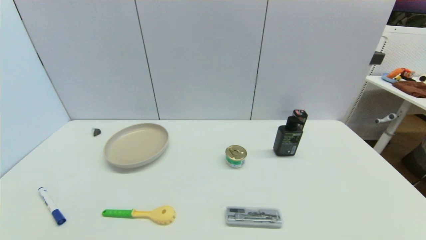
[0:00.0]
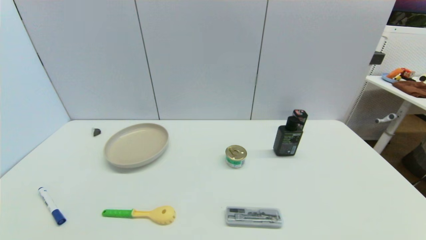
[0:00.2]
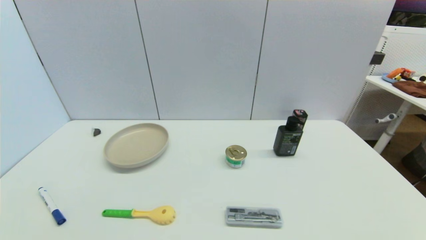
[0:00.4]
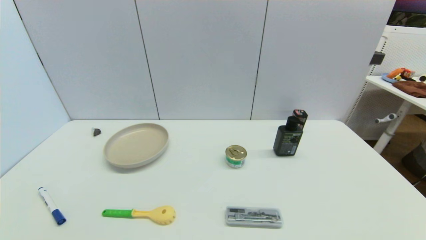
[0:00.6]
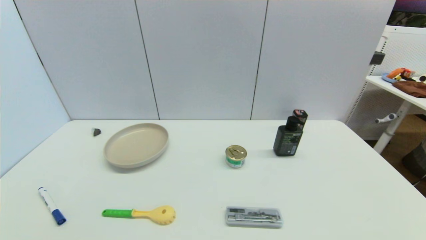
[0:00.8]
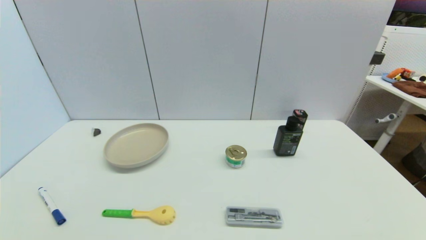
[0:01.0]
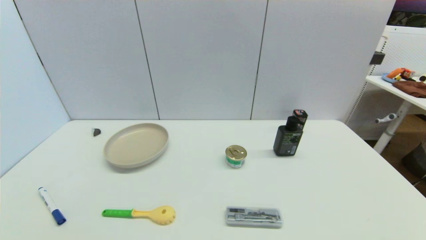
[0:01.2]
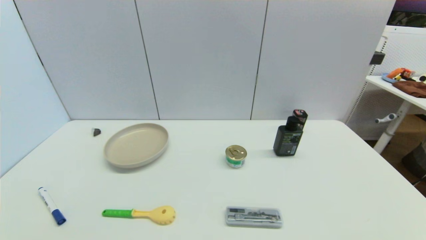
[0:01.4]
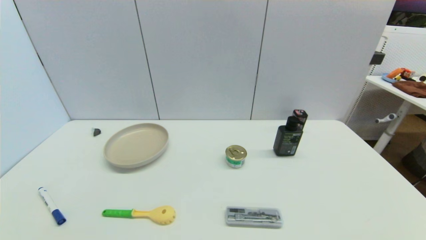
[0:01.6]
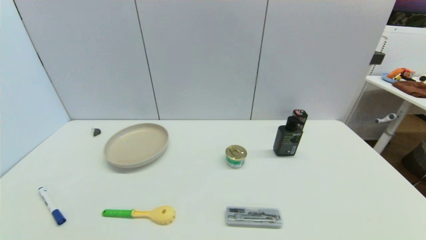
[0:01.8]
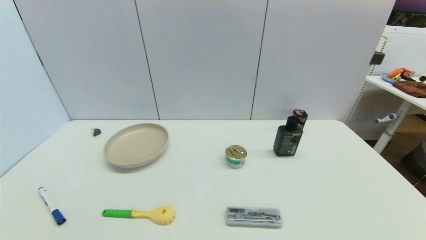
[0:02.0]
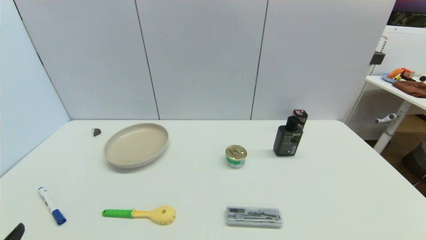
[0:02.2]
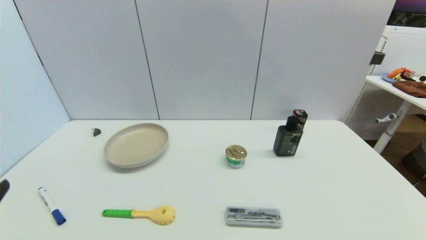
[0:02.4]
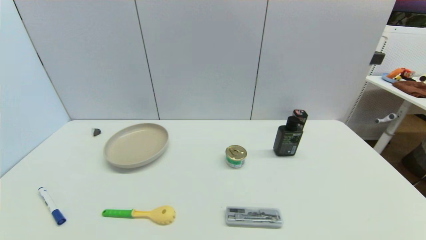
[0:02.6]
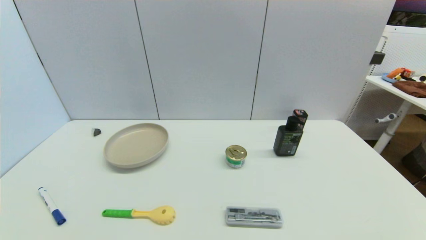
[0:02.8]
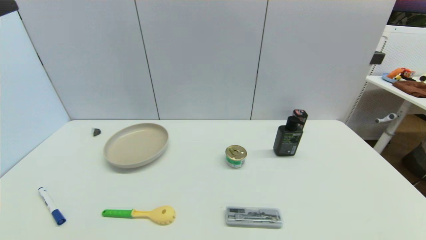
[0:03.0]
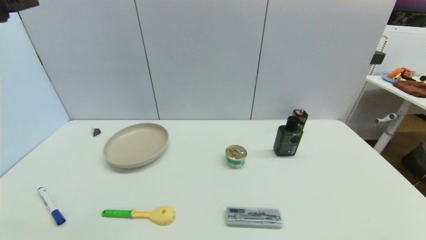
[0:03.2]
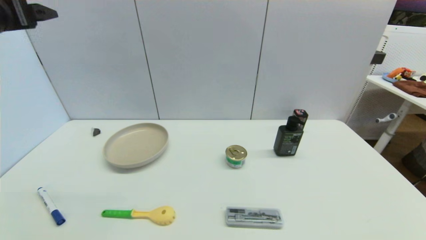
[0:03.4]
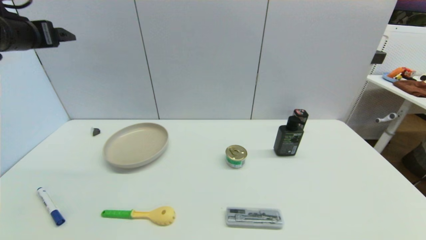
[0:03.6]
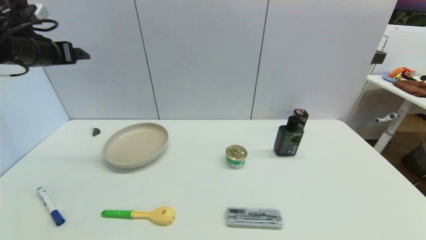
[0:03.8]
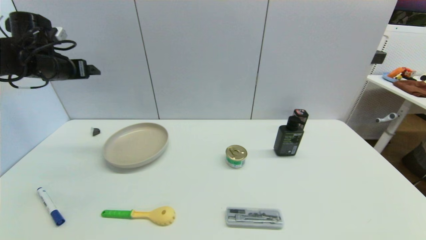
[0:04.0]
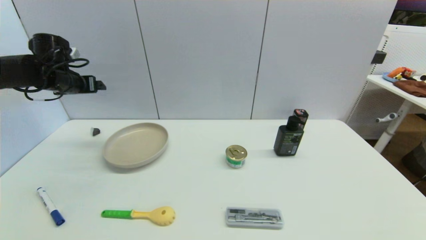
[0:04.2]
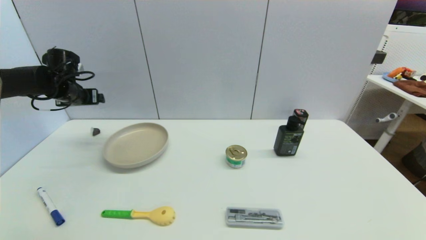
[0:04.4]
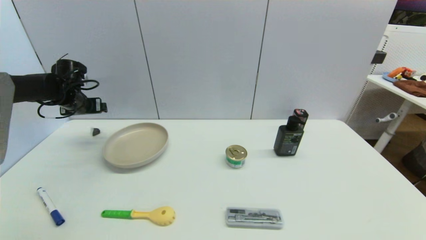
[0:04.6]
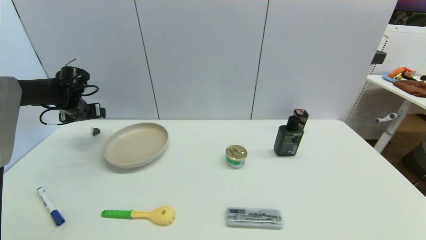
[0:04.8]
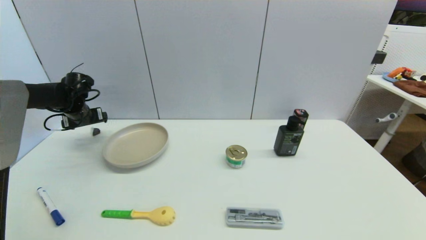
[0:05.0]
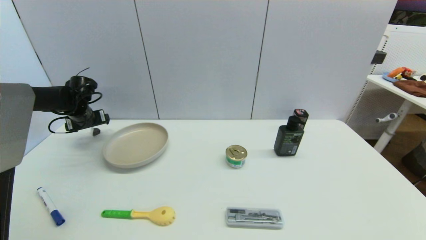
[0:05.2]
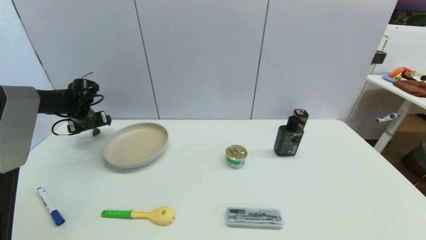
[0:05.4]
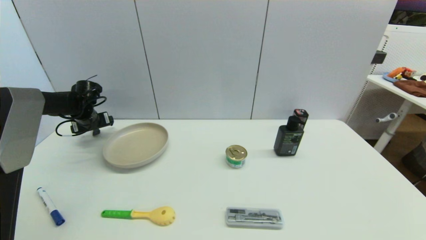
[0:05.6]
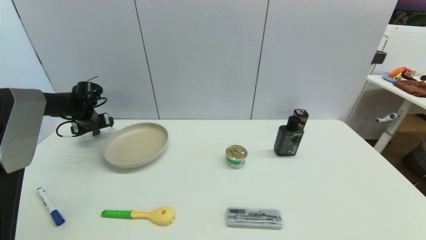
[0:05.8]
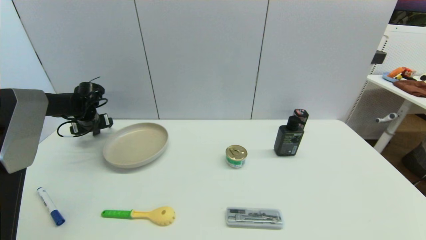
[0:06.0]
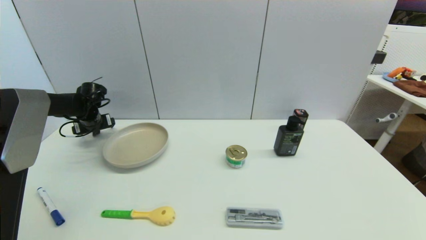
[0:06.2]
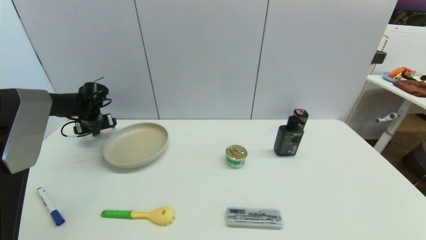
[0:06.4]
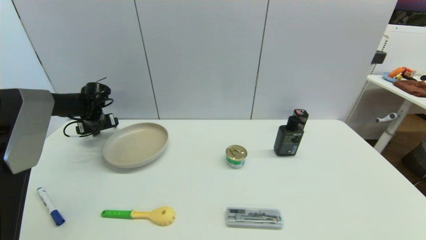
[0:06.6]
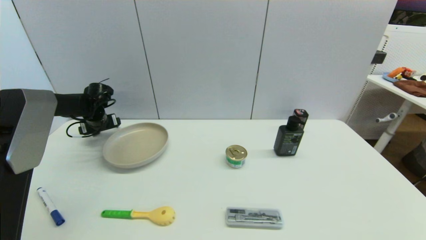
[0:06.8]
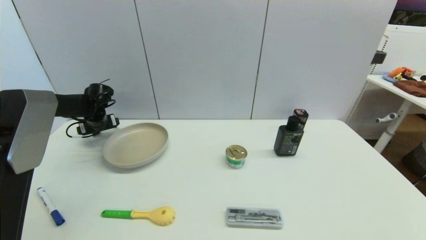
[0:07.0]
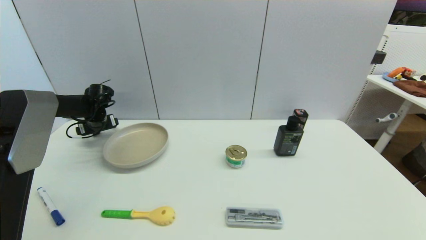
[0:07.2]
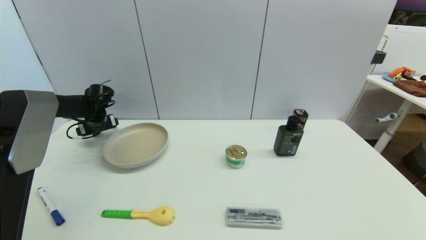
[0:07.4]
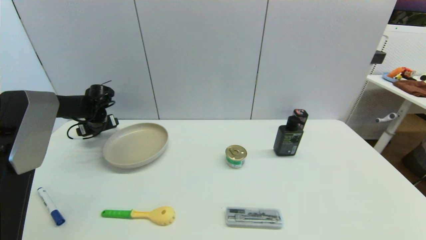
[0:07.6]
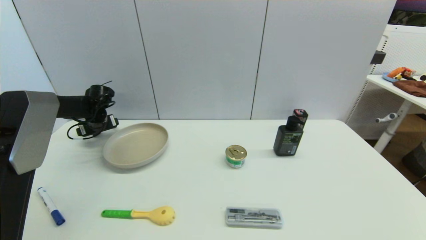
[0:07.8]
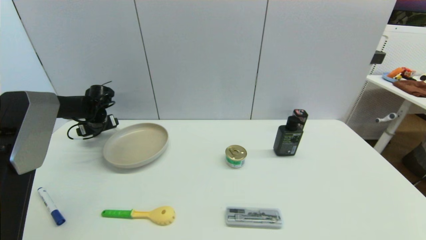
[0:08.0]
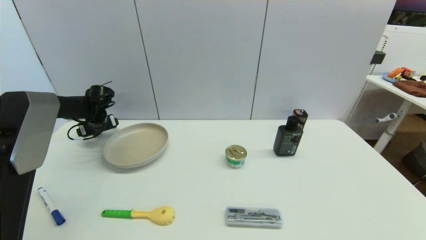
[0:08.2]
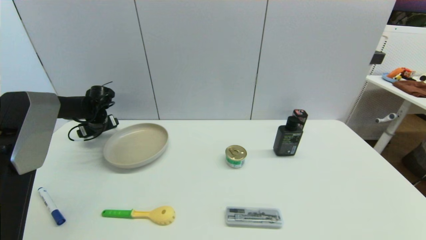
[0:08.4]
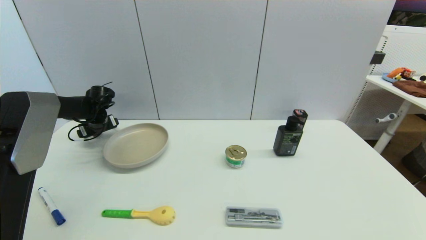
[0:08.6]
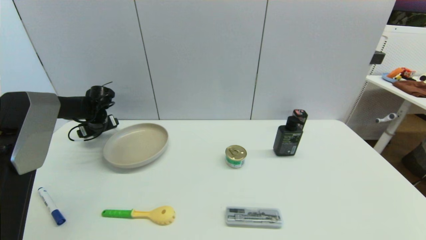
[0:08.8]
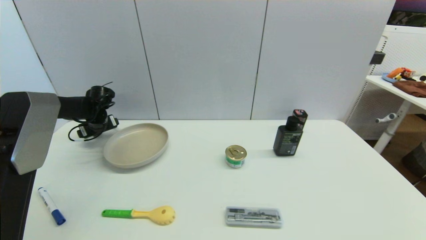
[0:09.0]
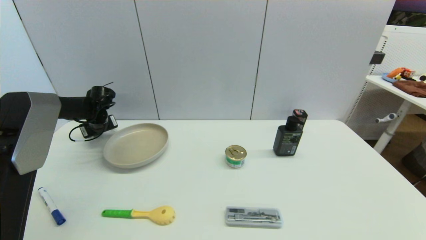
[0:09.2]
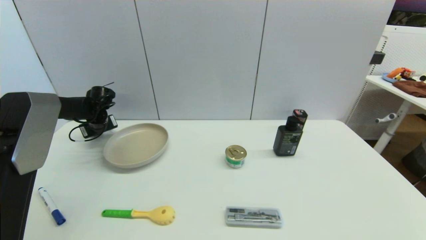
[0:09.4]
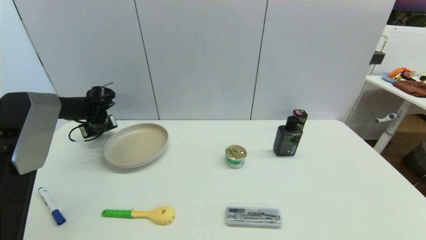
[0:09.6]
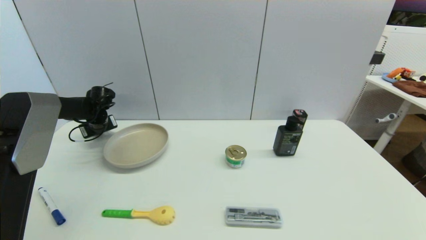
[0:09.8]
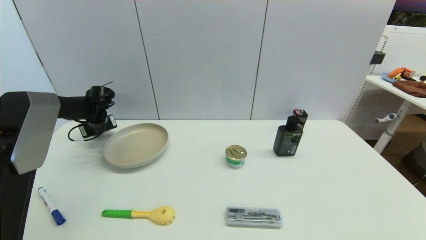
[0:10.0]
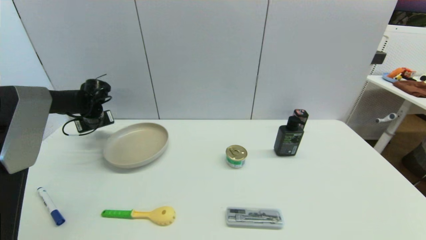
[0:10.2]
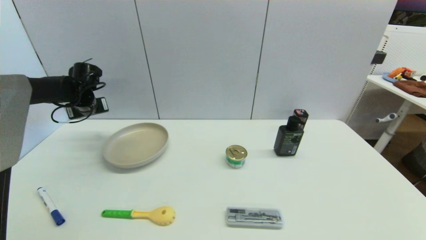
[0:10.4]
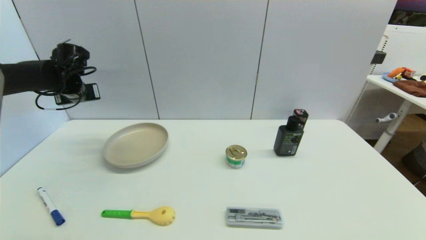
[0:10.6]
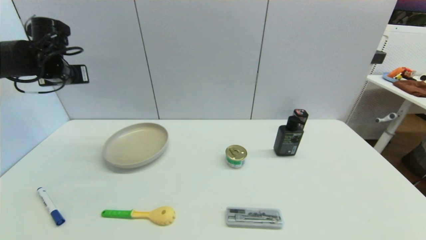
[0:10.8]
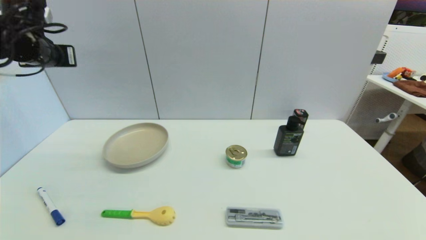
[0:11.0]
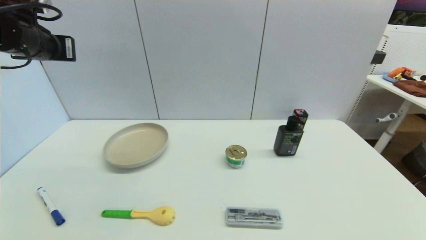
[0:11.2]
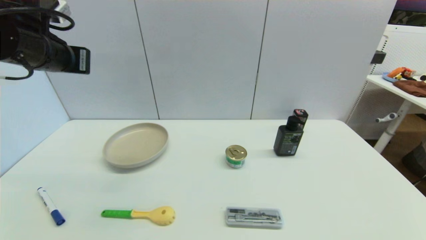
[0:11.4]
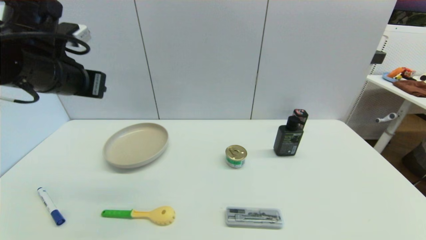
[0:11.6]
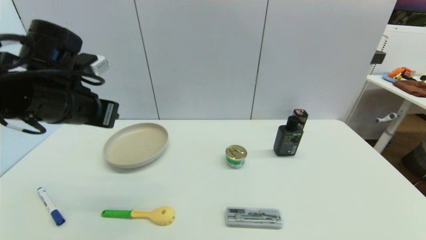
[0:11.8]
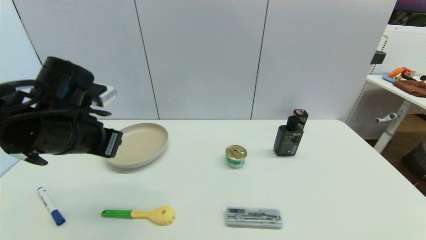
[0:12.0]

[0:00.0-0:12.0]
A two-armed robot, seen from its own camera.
Step, 0:02.2 to 0:10.2: Grasp the coffee capsule with left gripper.
0:00.0 to 0:01.6: Both grippers stay about where they are.
0:03.0 to 0:04.4: The left gripper goes approximately 35 cm forward and downward.
0:04.4 to 0:06.0: The left gripper travels downward by some 10 cm.
0:06.0 to 0:07.6: There are only small adjustments of the grippers.
0:07.6 to 0:09.0: Both grippers stay about where they are.
0:09.0 to 0:10.4: The left gripper travels upward by approximately 10 cm, and closes its fingers.
0:10.4 to 0:12.0: The left gripper is displaced backward and to the right by some 25 cm.

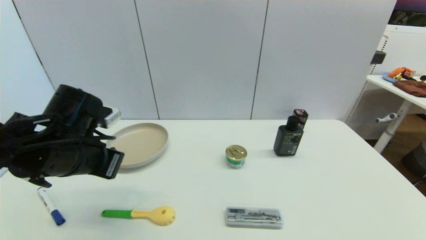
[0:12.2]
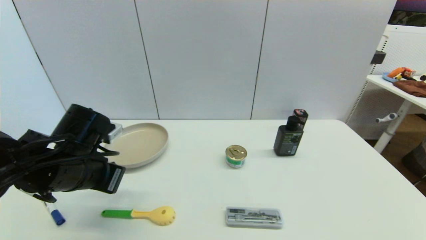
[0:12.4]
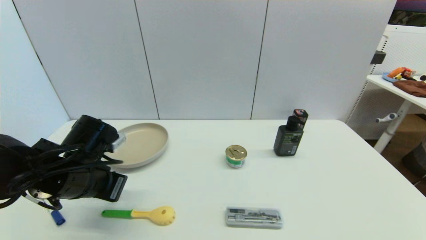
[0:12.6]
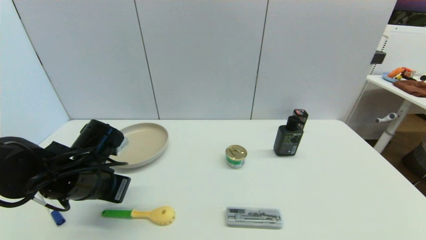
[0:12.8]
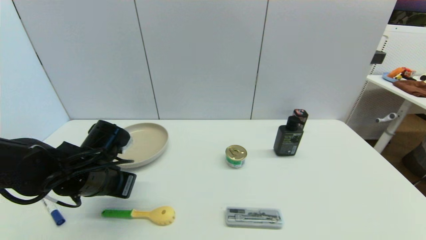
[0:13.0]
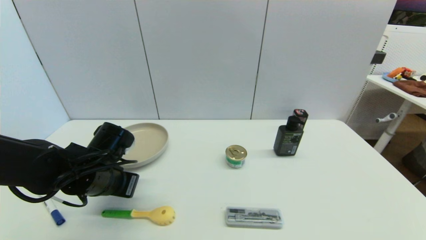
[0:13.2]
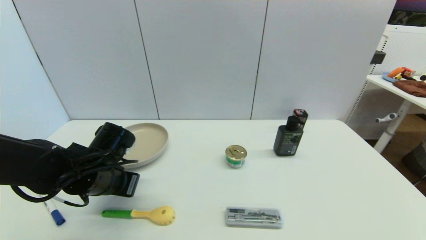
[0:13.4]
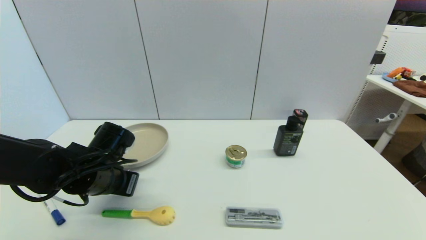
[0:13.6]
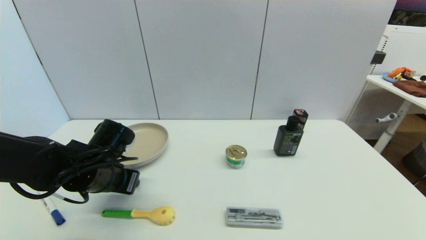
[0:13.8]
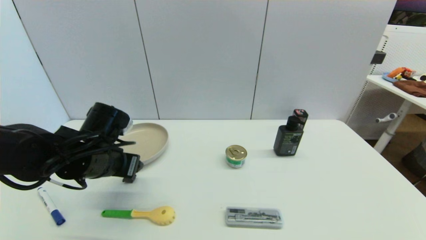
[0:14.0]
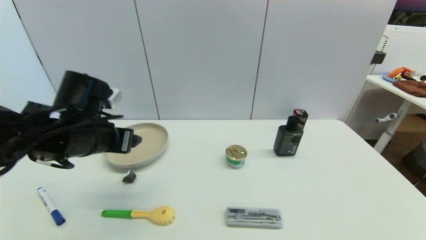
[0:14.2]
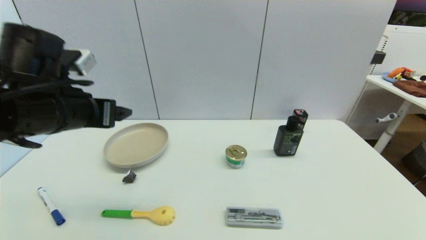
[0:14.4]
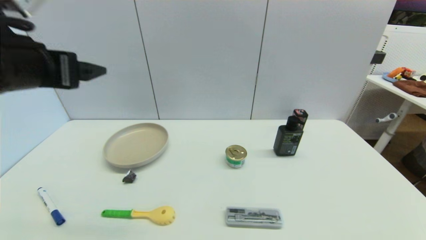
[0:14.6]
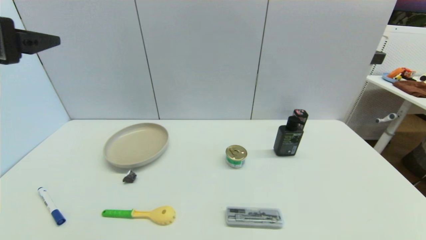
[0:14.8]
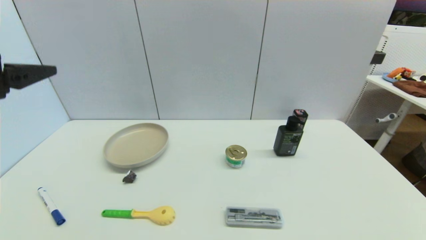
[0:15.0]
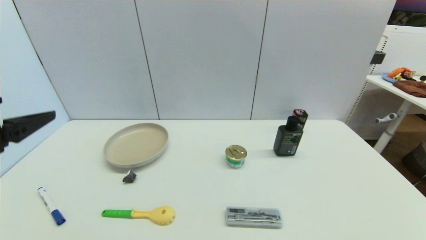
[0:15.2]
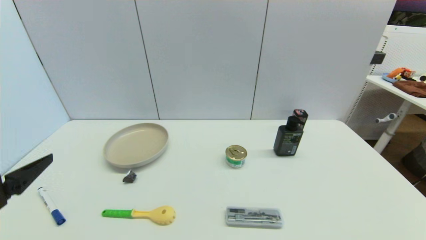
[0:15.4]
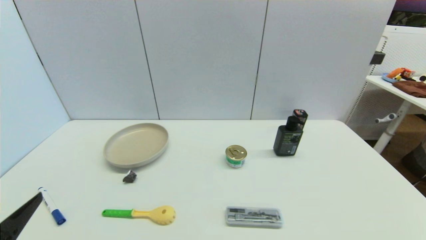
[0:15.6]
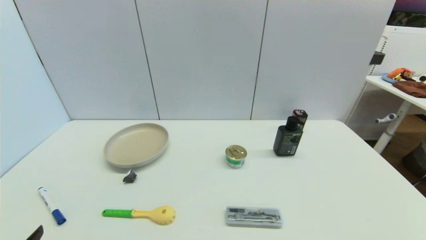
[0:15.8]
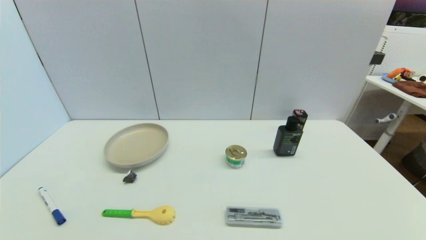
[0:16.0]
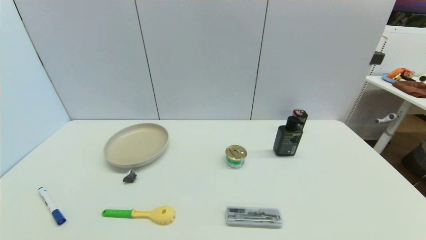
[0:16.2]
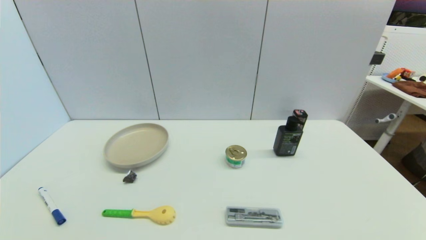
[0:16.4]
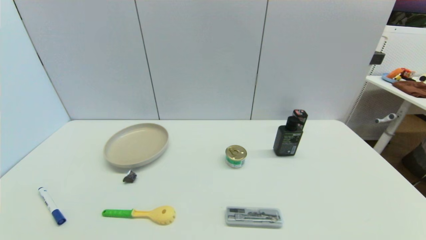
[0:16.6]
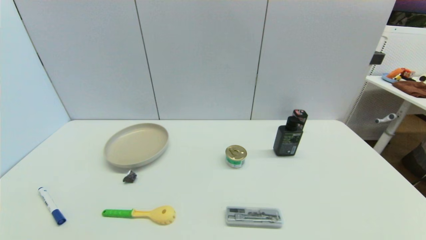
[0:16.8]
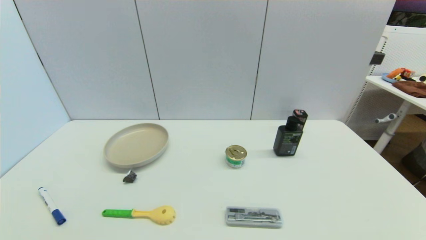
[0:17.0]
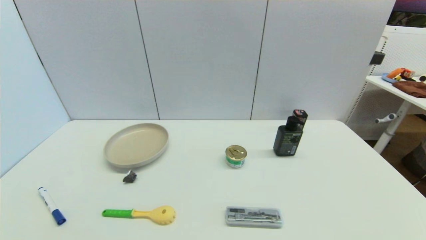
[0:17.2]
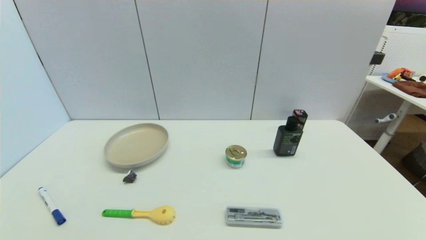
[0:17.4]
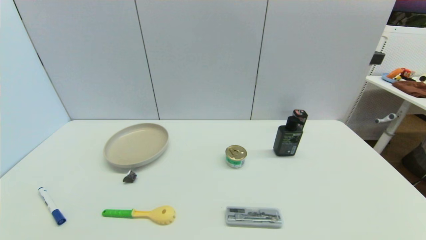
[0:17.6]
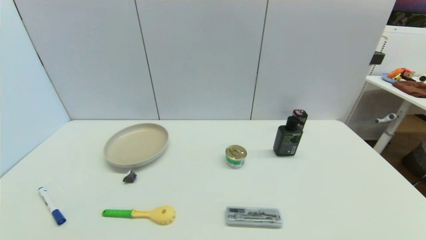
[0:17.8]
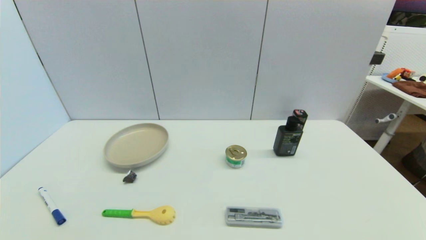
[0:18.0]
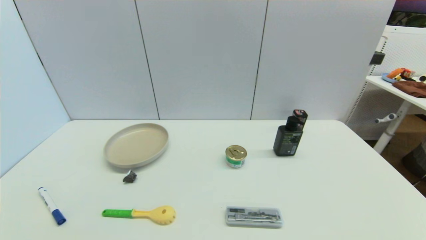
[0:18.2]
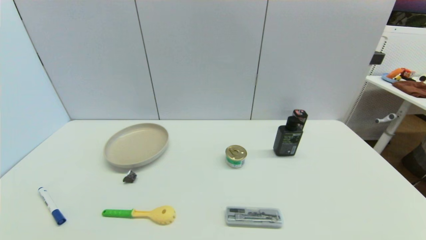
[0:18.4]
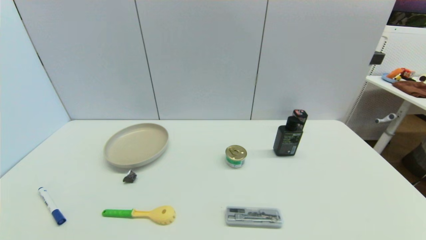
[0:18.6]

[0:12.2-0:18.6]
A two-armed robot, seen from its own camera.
0:12.2 to 0:13.8: The left gripper is displaced downward by approximately 5 cm, and opens.
0:13.8 to 0:15.4: The left gripper is displaced backward, upward and to the left by some 20 cm, and opens its fingers.
0:15.4 to 0:17.0: The left gripper heads downward and backward, covering approximately 15 cm.
0:17.0 to 0:18.6: Neither gripper changes place.
